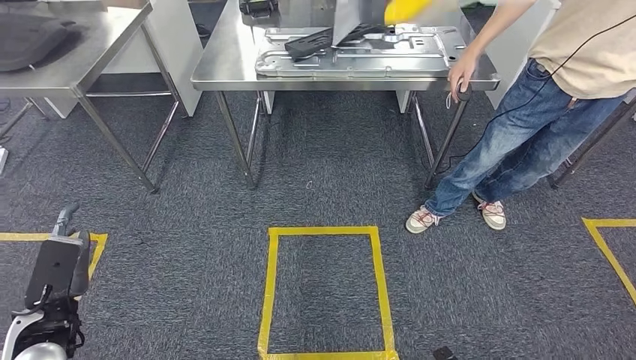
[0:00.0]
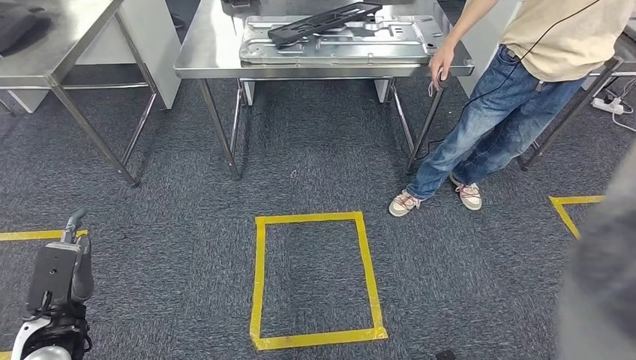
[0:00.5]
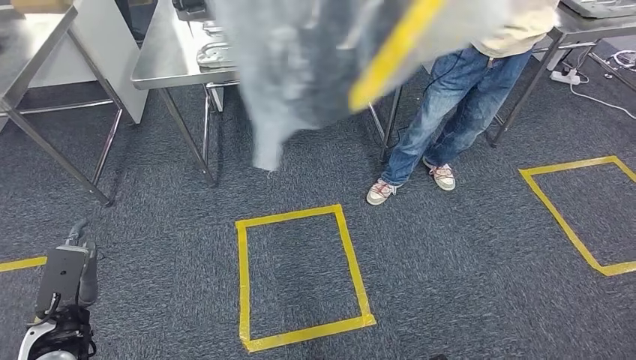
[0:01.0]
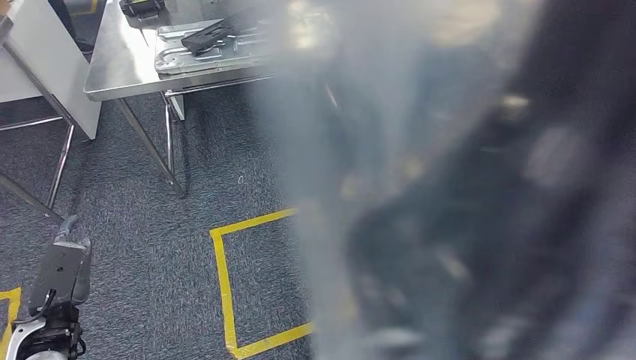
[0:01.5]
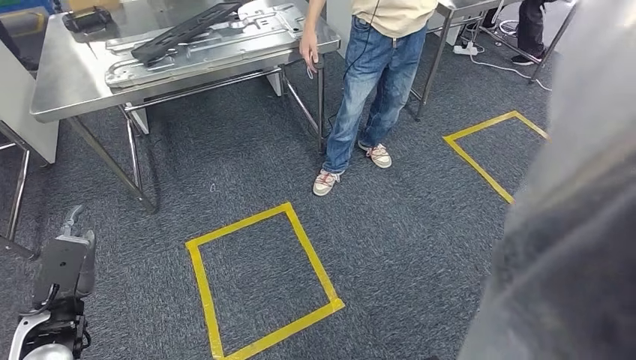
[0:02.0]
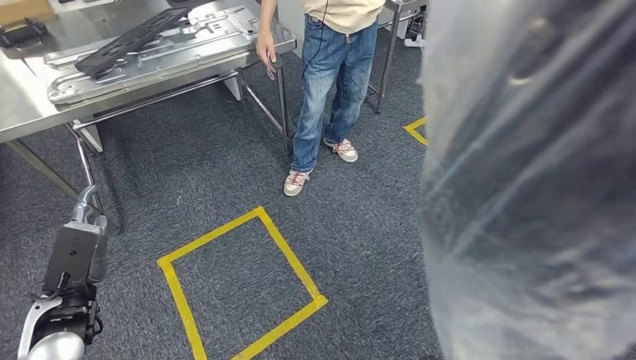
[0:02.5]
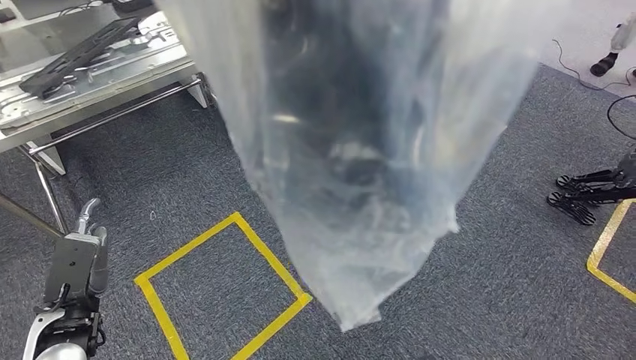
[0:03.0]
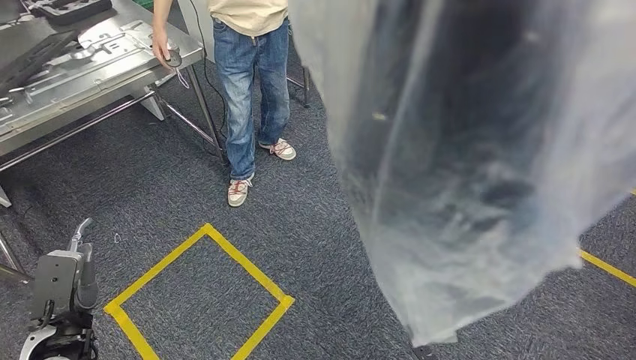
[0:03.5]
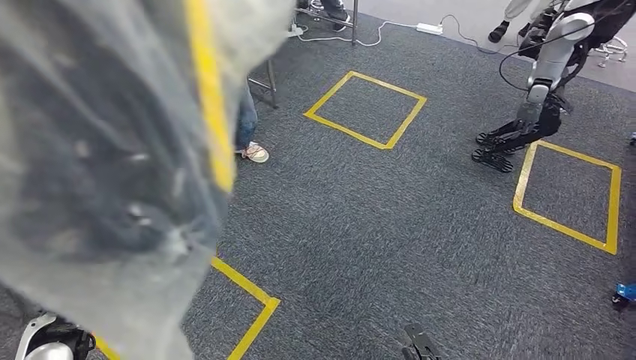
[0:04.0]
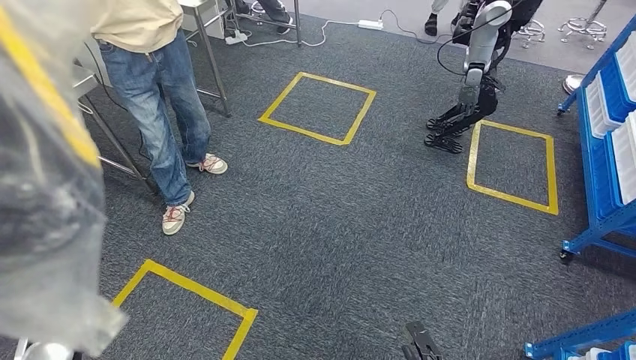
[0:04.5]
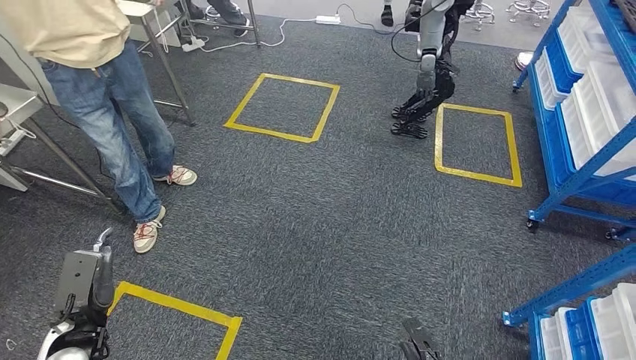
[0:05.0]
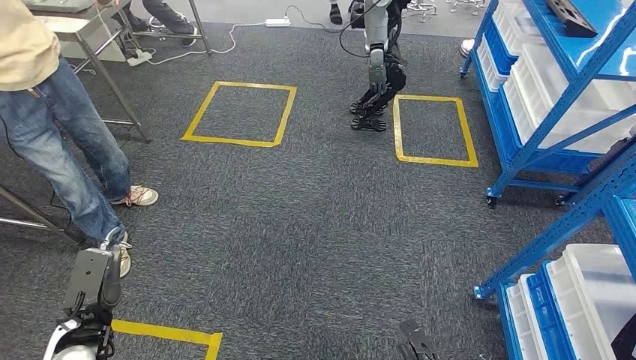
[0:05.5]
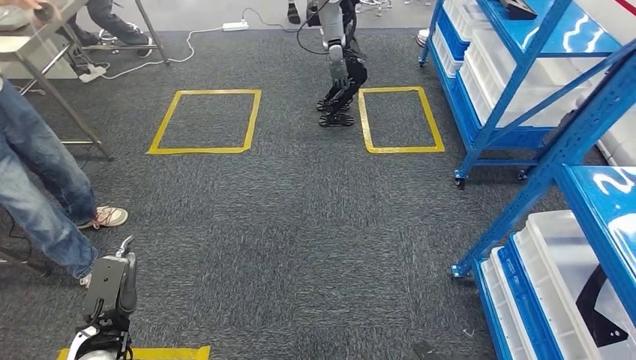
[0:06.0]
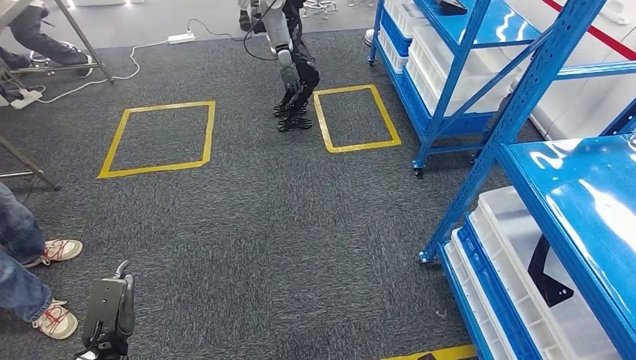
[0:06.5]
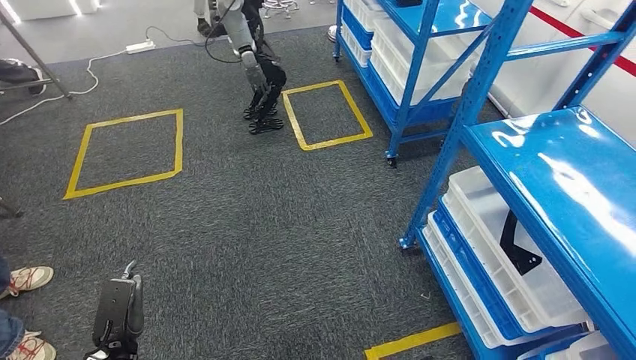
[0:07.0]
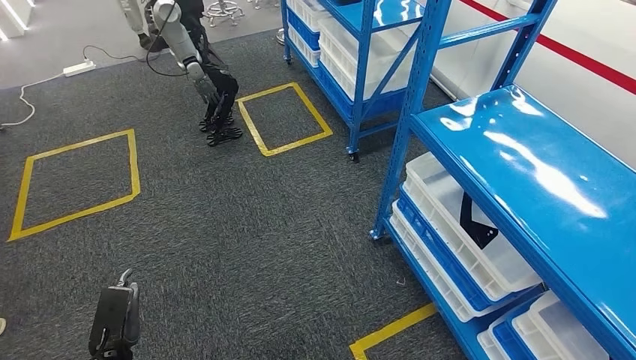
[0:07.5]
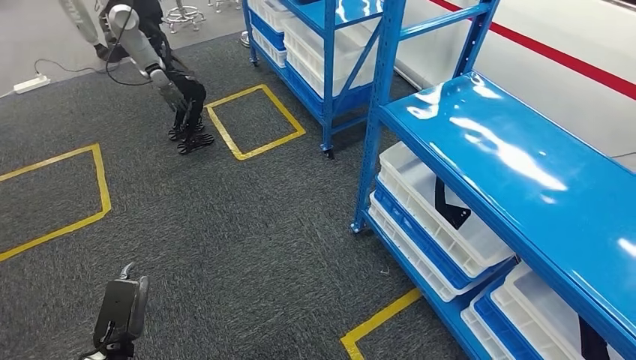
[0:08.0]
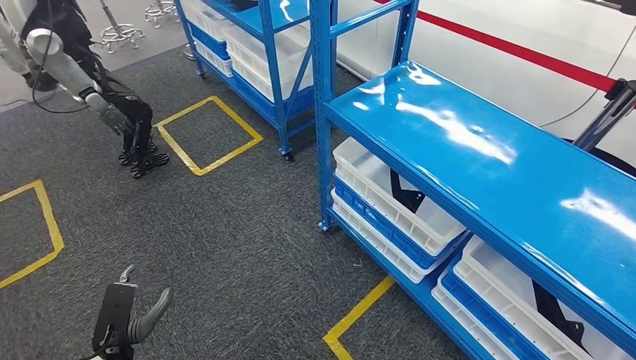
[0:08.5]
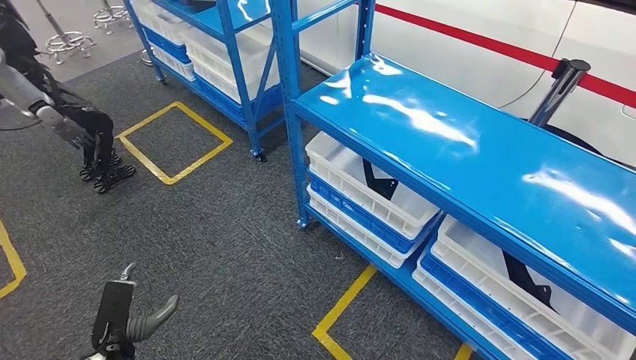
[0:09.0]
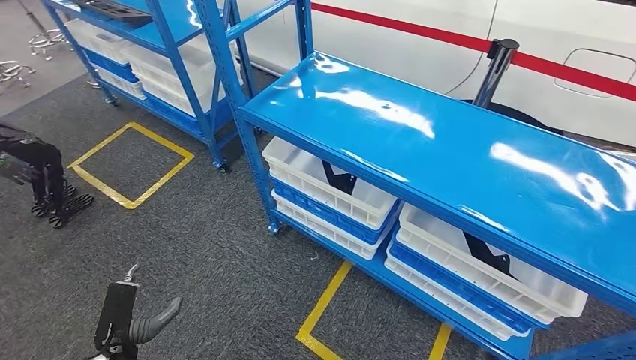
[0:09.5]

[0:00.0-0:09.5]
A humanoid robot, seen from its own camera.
Step, 0:00.0 to 0:09.0: Move to the initial position of the shelf.

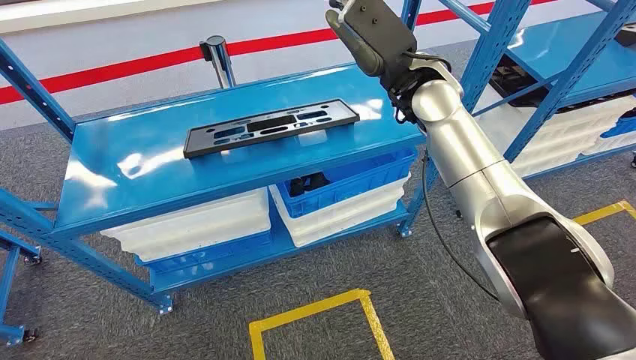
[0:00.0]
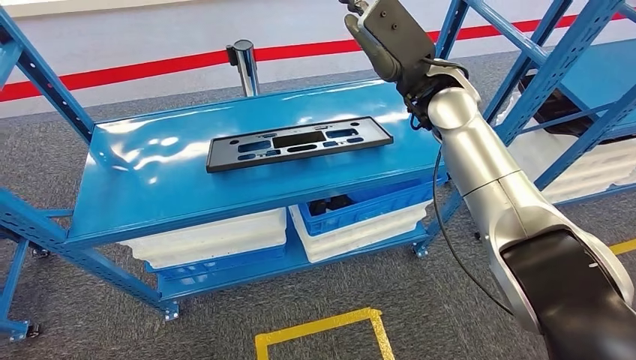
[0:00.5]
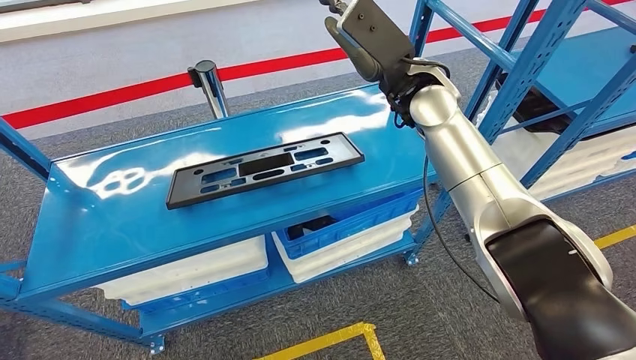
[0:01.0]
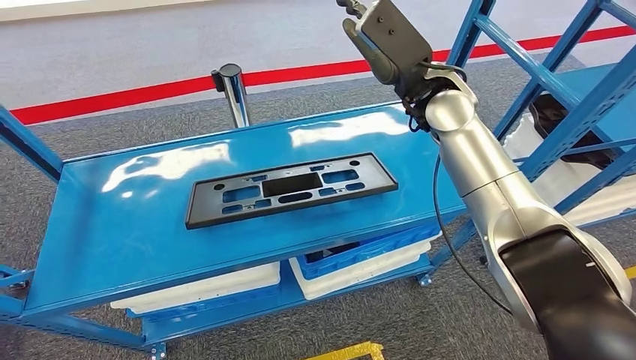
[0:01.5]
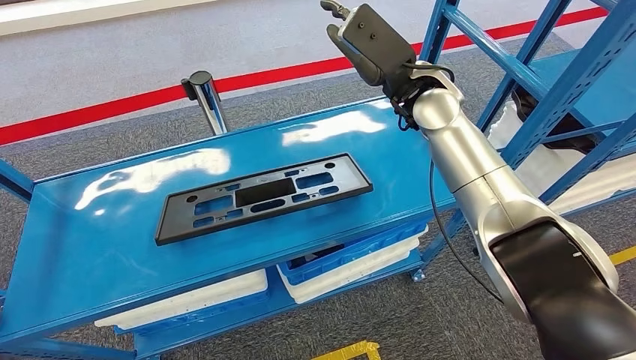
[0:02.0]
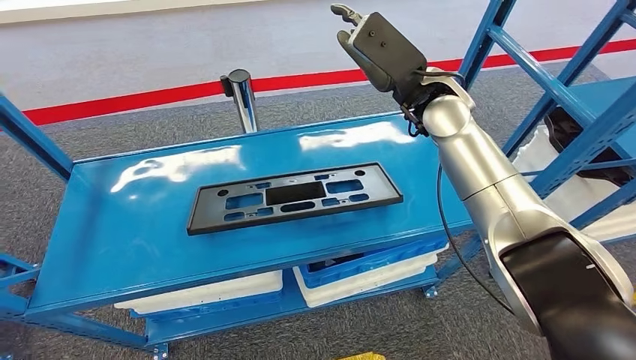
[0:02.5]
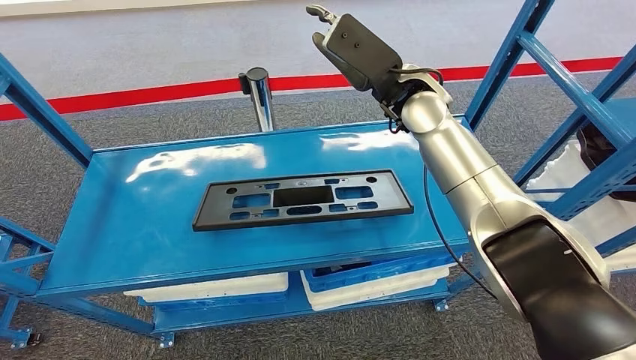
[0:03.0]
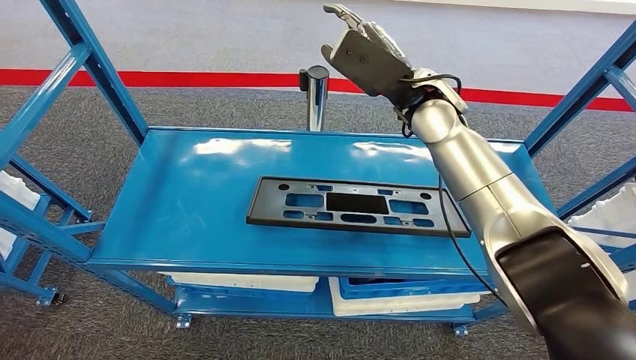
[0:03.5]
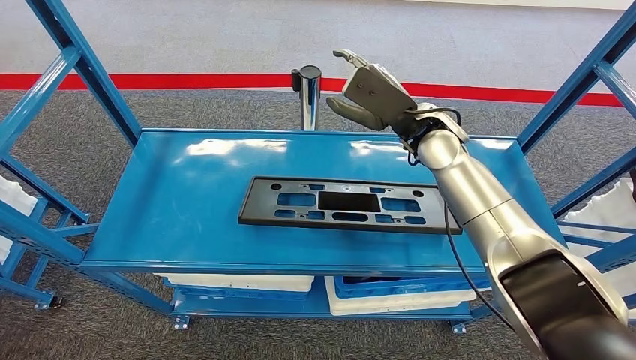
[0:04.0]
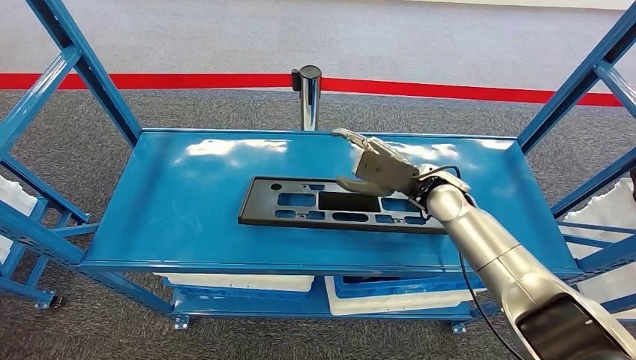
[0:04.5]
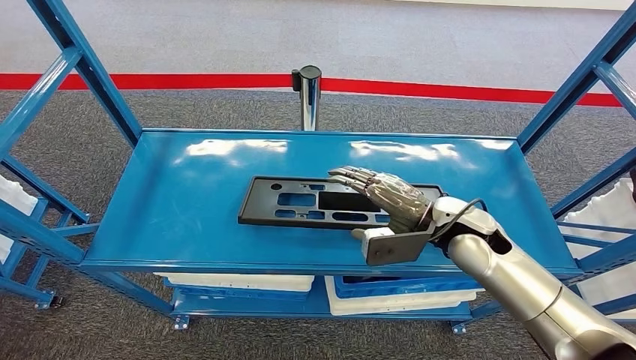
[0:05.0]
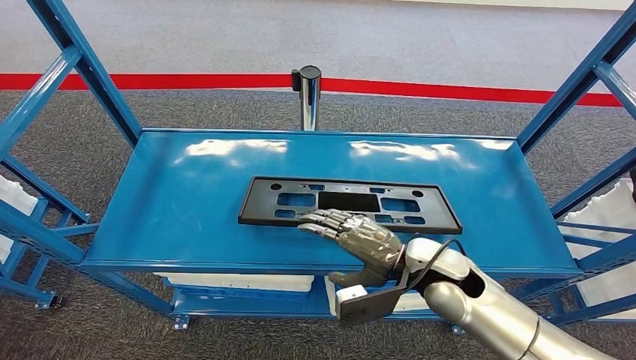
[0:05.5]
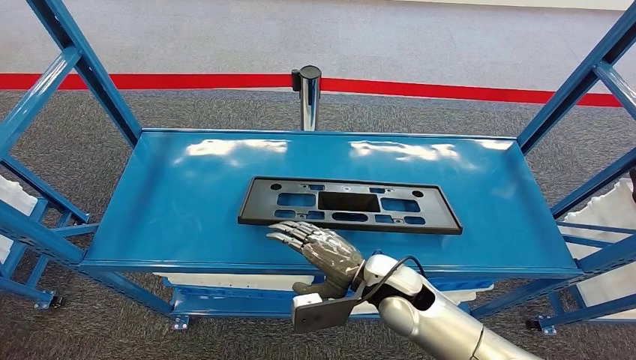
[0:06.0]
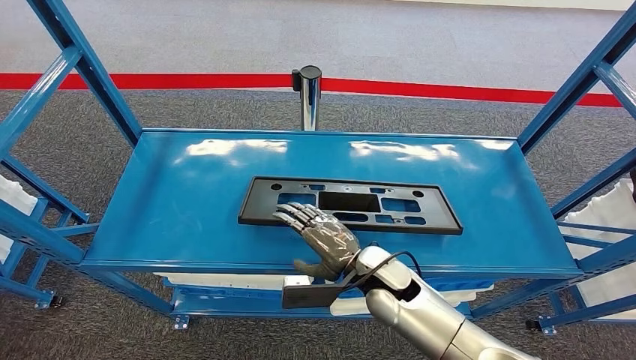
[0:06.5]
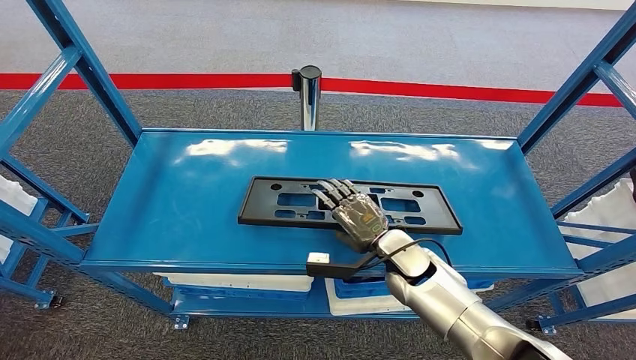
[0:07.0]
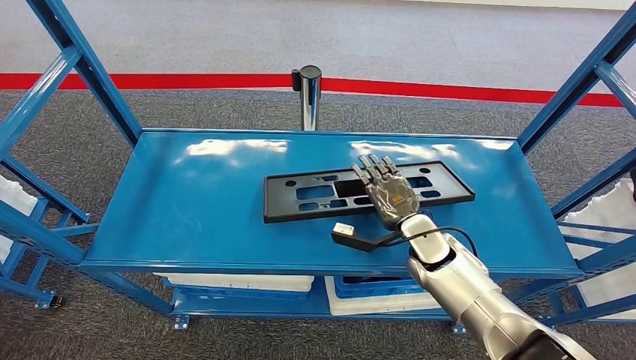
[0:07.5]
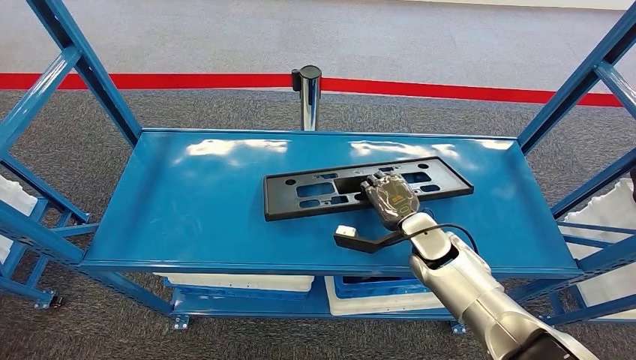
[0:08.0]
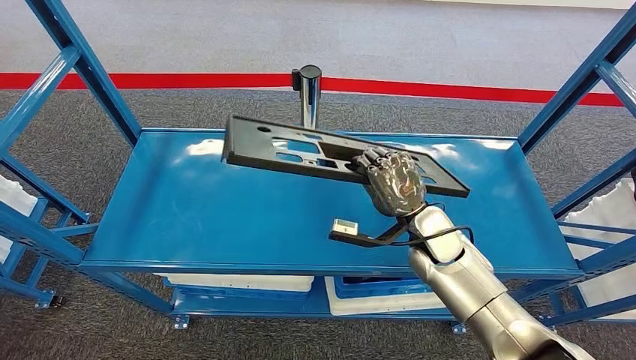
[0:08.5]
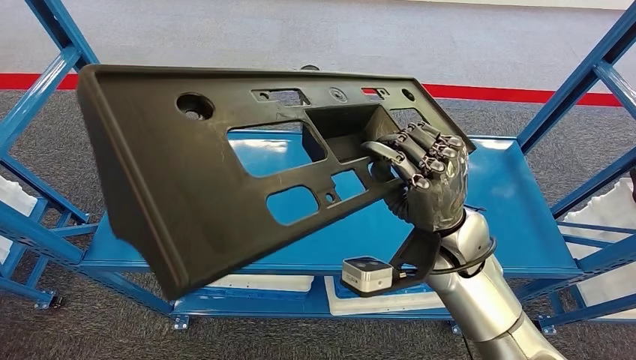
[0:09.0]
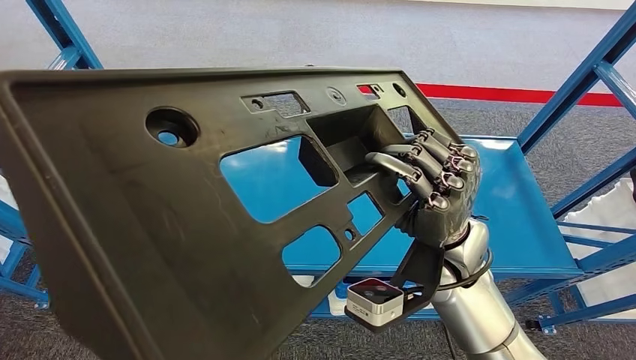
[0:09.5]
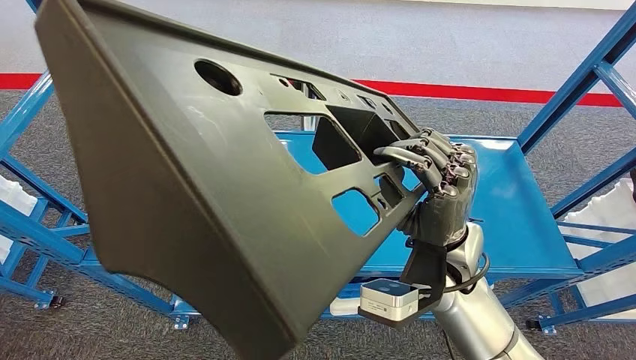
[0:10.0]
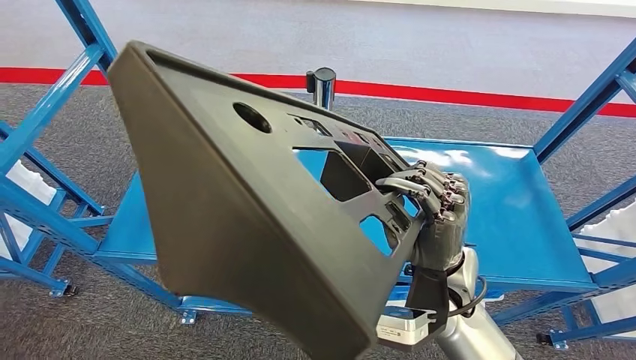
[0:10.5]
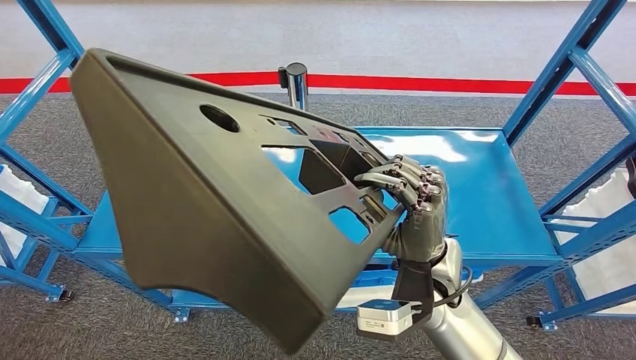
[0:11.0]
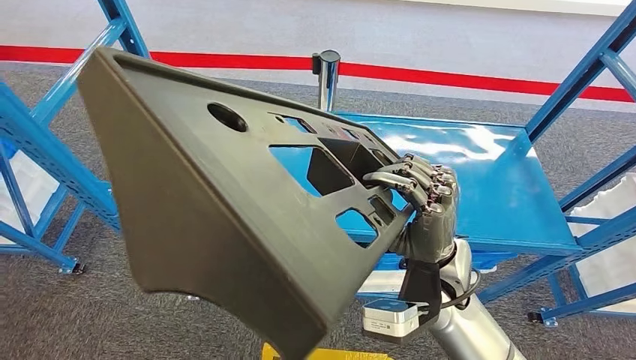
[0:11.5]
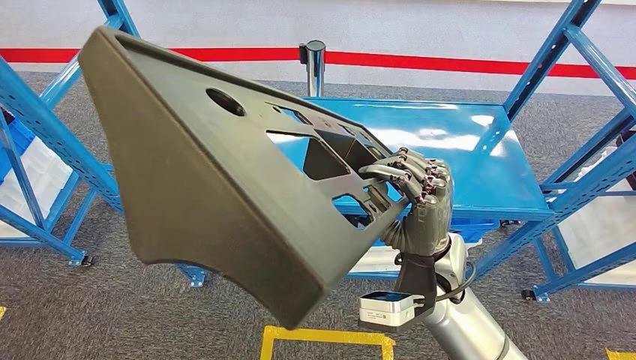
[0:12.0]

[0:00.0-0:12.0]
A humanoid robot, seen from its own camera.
Step, 0:00.0 to 0:10.5: Pick up the large material from the shelf.
0:04.0 to 0:06.0: The right hand goes about 25 cm backward and downward.
0:06.0 to 0:08.0: The right hand shifts approximately 10 cm forward and to the right.
